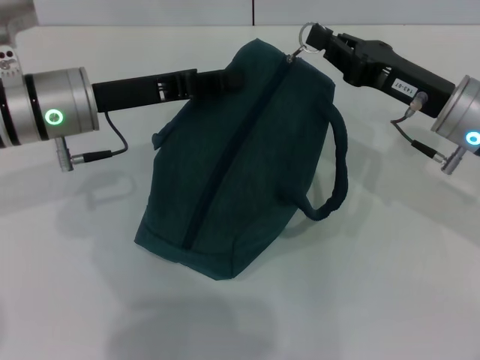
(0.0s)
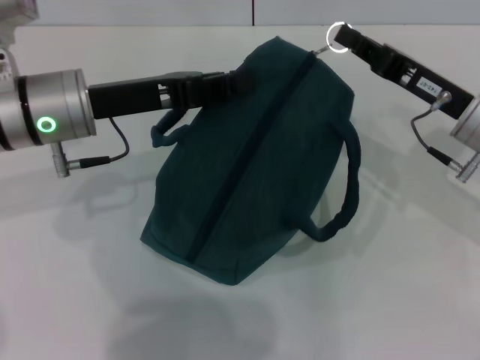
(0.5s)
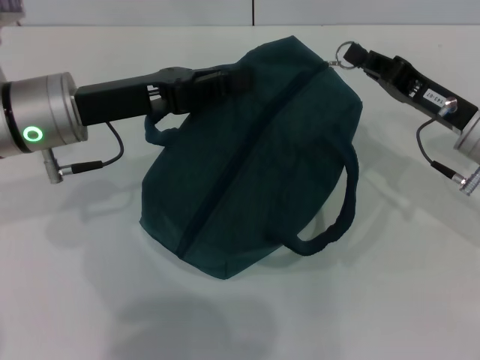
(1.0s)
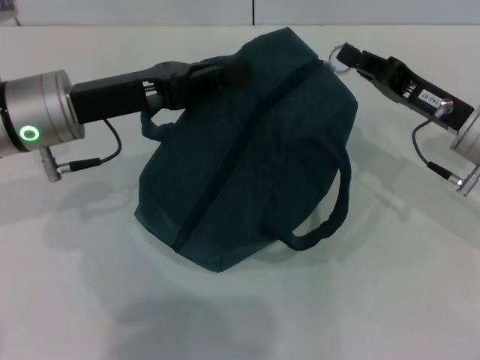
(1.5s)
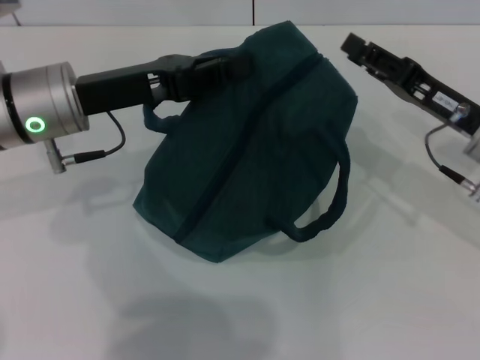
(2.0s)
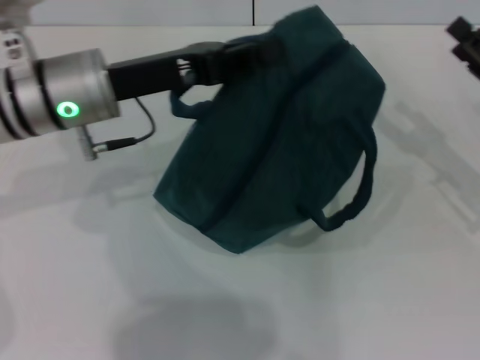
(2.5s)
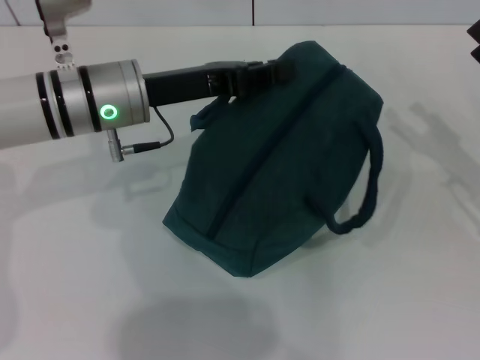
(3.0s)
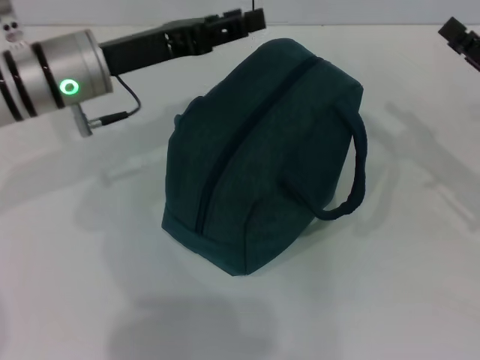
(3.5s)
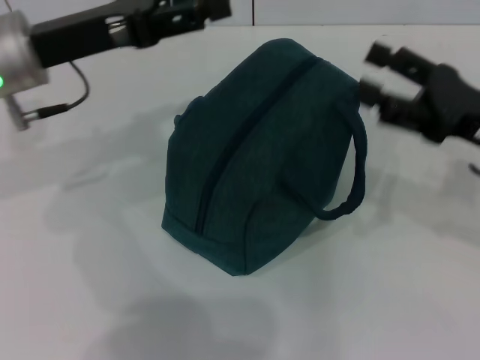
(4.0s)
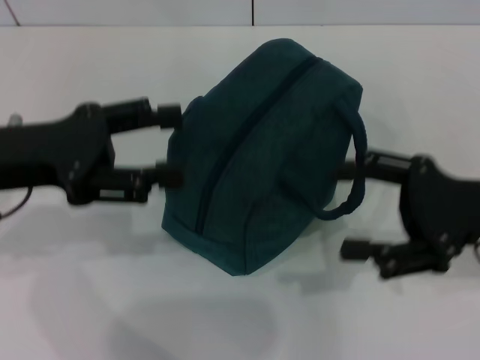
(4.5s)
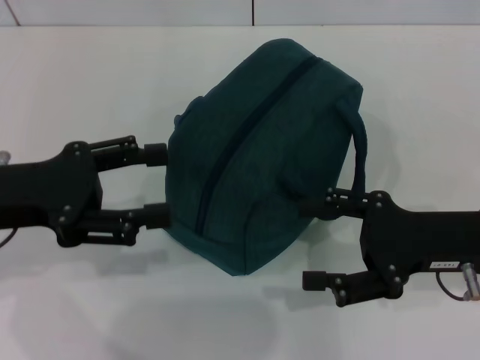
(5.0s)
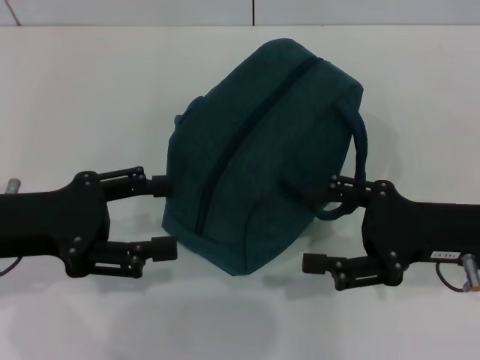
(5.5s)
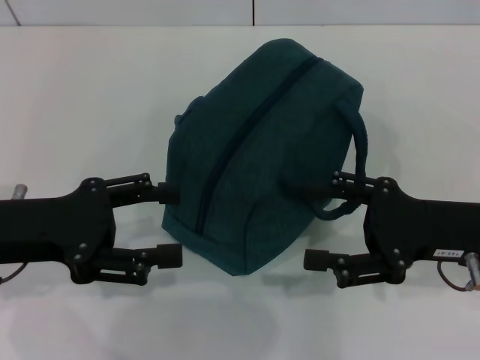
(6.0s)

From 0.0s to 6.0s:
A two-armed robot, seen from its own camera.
Step, from 0.0s to 2.0s: Zip up the lunch bag with your right hand.
Step, from 2.5s to 3.0s: Hold the lunch bag with your left hand.
From 0.0s to 2.0s: The right gripper opens up.
From 2.0s to 4.0s: The right gripper goes to the right and returns, roughly 10 cm each way, and opens up. The left gripper opens its fingers.
From 4.0s to 6.0s: The left gripper heads backward and downward, covering about 10 cm, while the right gripper shifts by about 5 cm.
